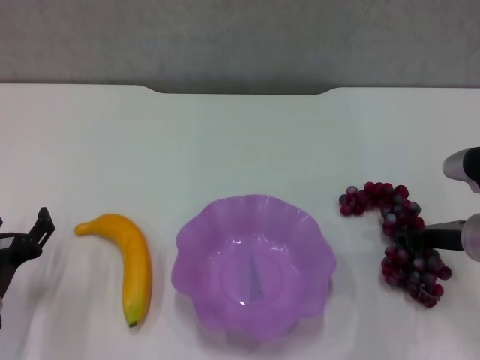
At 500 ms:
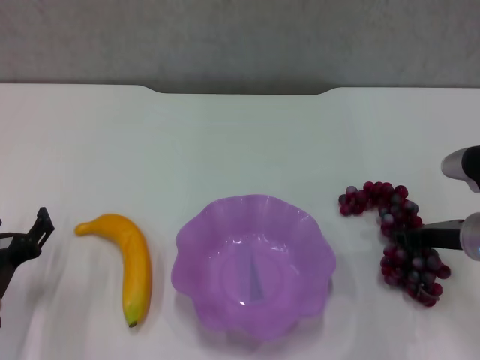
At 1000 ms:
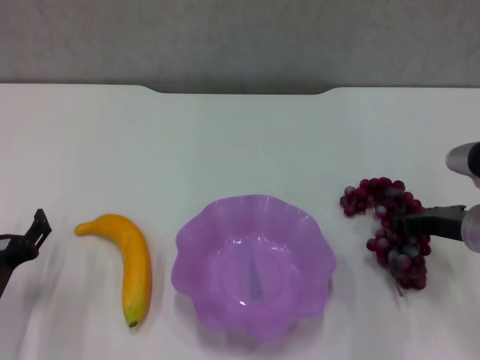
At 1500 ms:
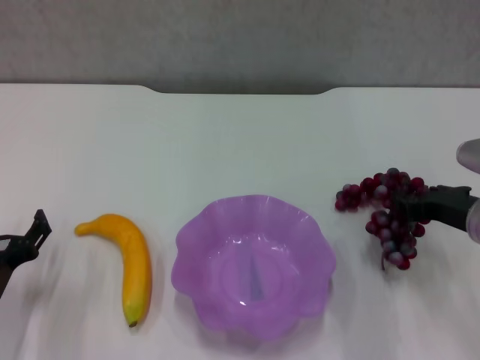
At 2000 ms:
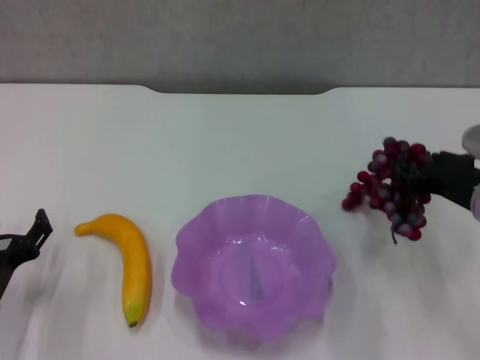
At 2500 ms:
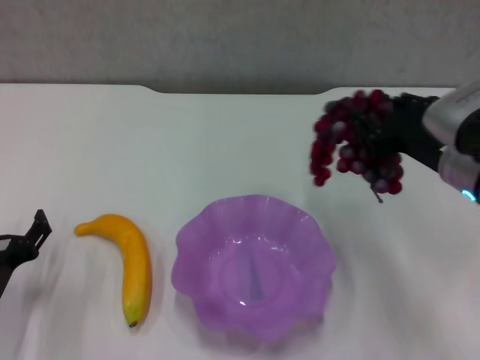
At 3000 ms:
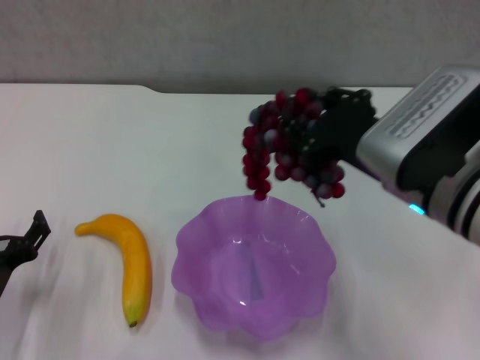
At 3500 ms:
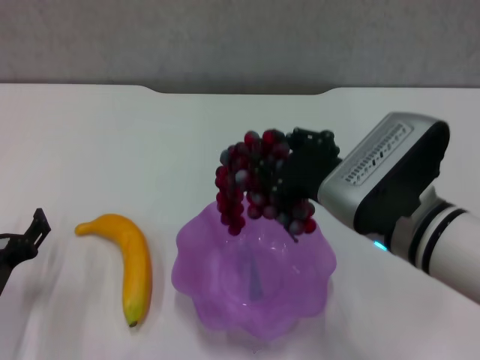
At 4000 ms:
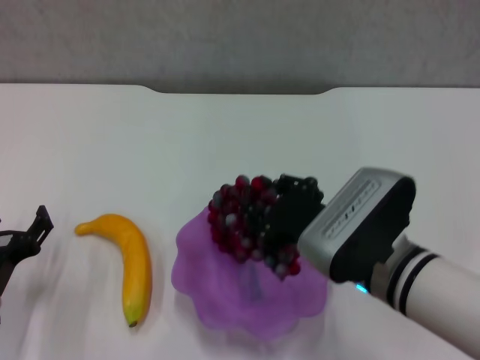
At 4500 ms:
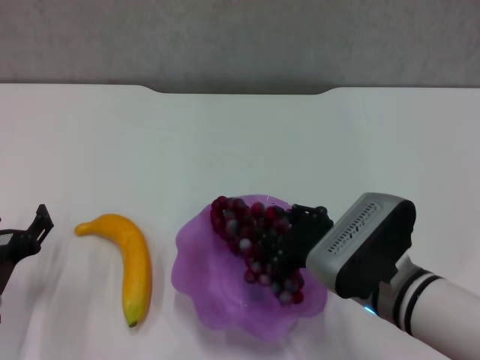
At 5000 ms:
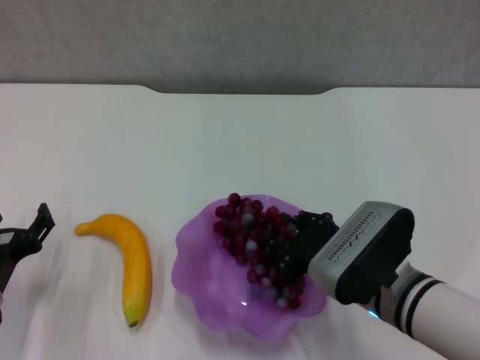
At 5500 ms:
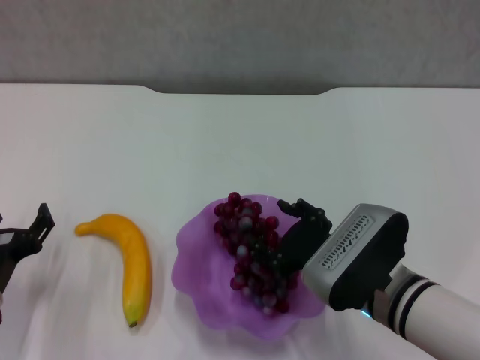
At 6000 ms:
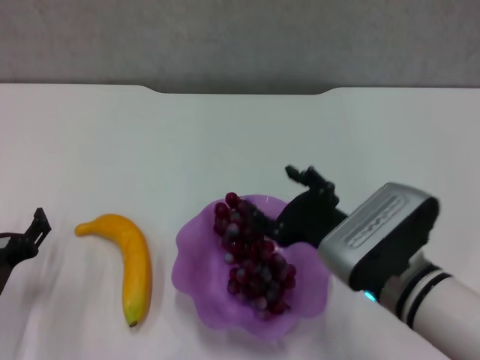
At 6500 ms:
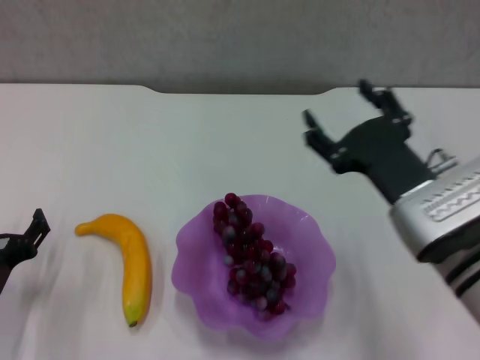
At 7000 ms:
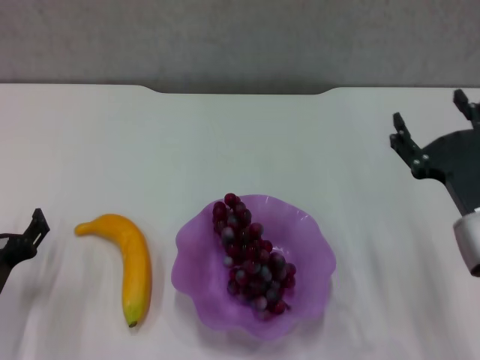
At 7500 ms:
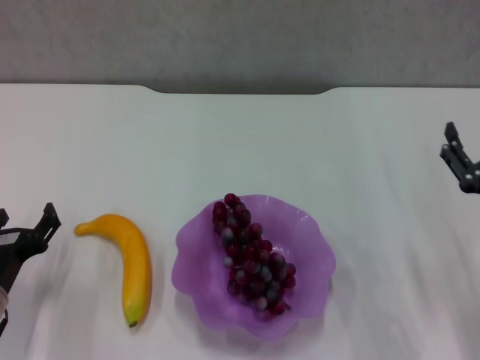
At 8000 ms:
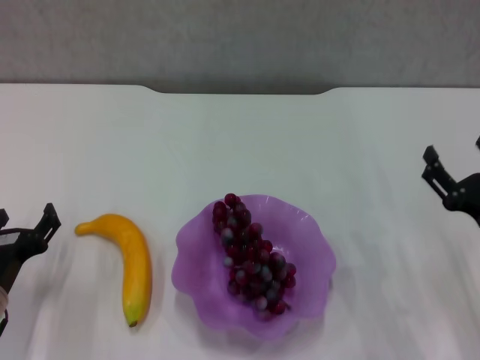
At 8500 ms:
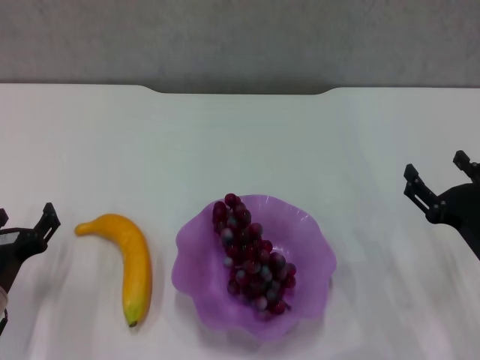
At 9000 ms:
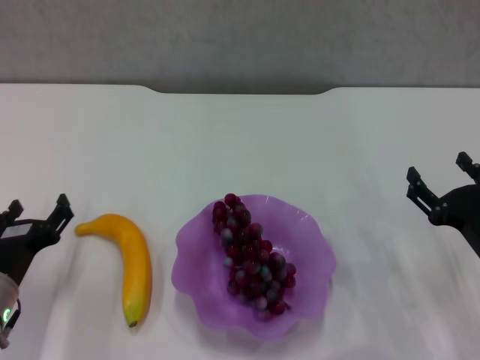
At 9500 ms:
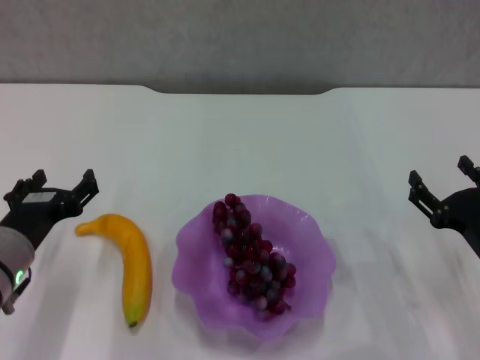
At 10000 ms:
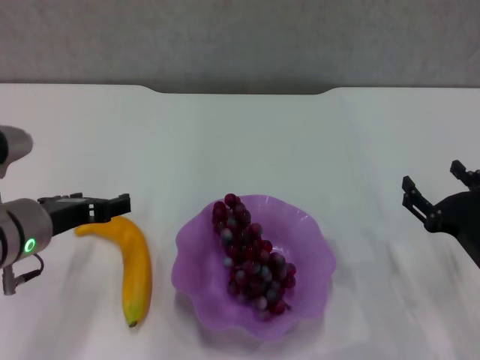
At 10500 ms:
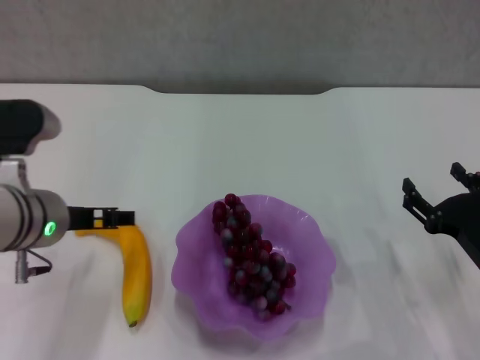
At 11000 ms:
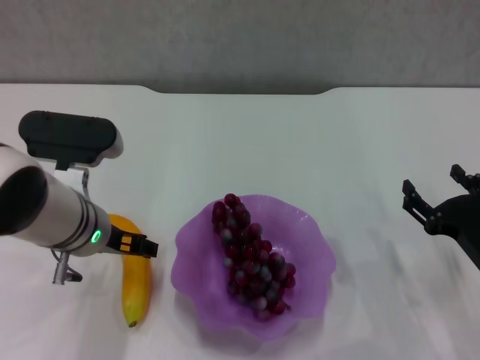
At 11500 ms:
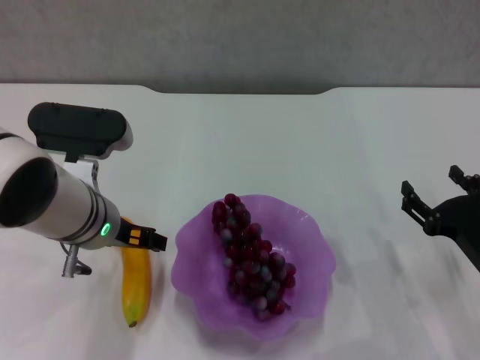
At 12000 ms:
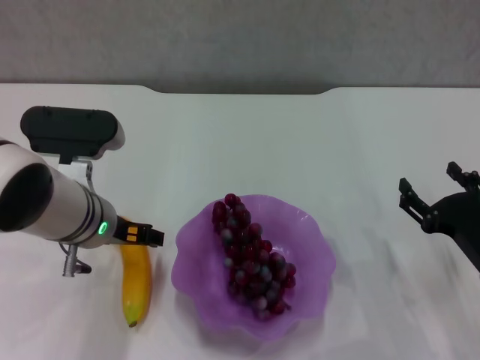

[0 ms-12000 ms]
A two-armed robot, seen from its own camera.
Step, 0 ms to 6000 ms: Place the grape in the purple plate with right gripper.
0 ms to 2000 ms: The right gripper moves upward, approximately 5 cm.
2000 ms to 4000 ms: The right gripper travels to the left by roughly 15 cm.
4000 ms to 6000 ms: The right gripper opens up.
6000 ms to 8000 ms: The right gripper heads to the right, covering about 15 cm.
8000 ms to 10000 ms: The left gripper is displaced upward and to the right by about 10 cm.
10000 ms to 12000 ms: The left gripper shifts approximately 5 cm to the right.

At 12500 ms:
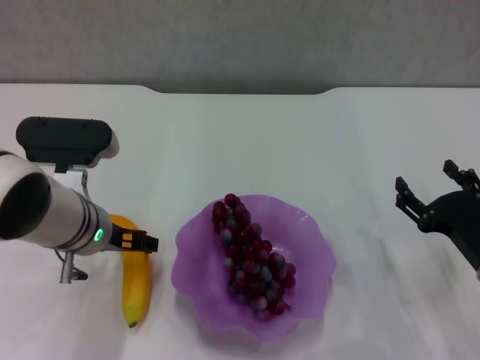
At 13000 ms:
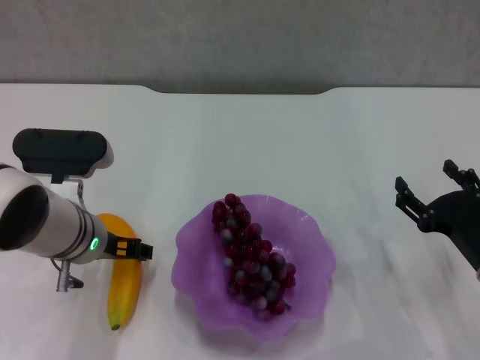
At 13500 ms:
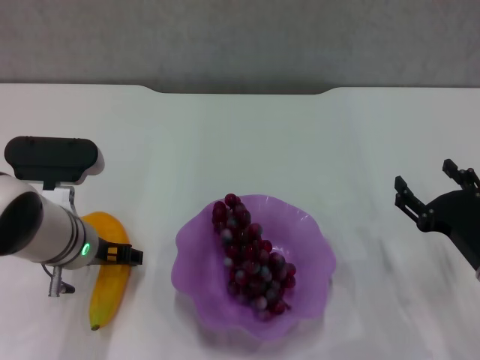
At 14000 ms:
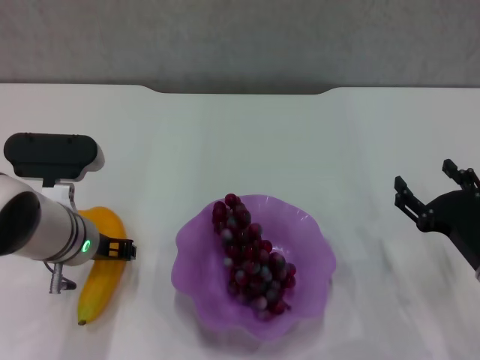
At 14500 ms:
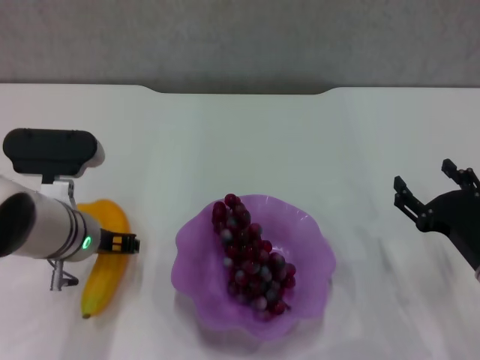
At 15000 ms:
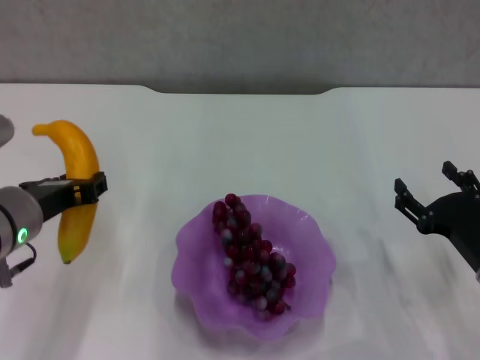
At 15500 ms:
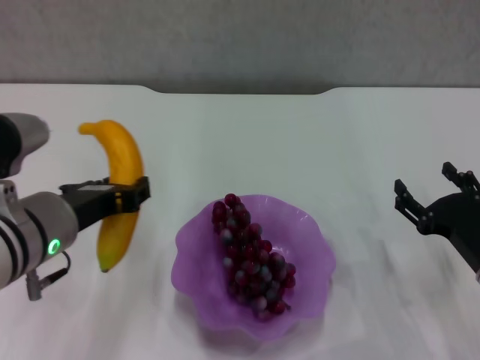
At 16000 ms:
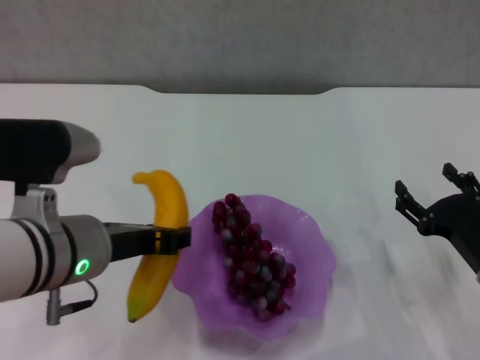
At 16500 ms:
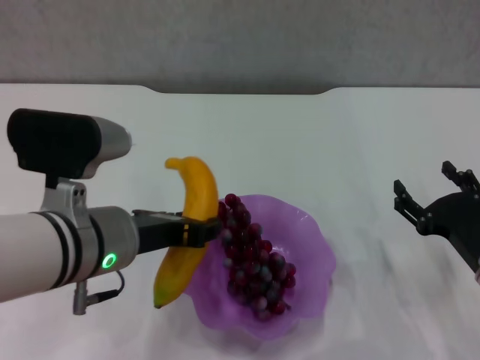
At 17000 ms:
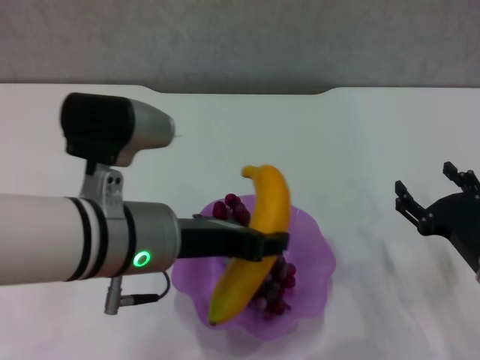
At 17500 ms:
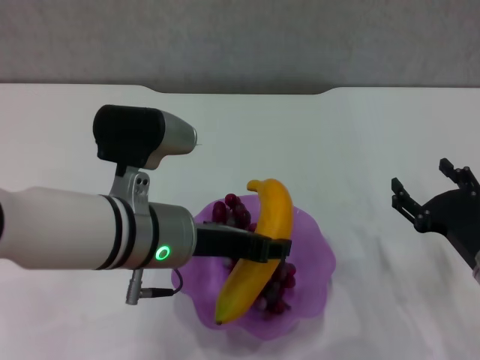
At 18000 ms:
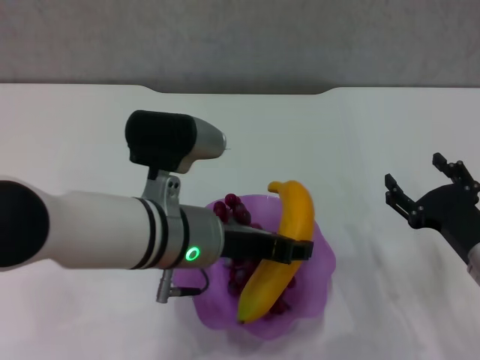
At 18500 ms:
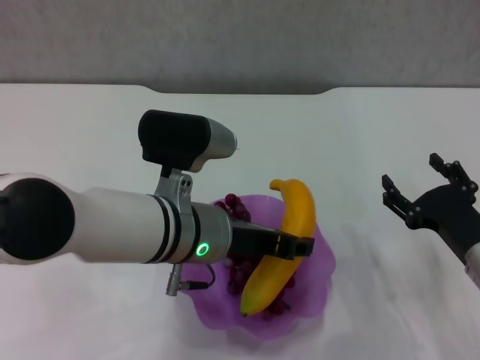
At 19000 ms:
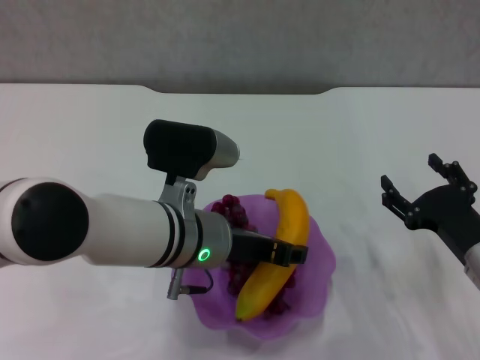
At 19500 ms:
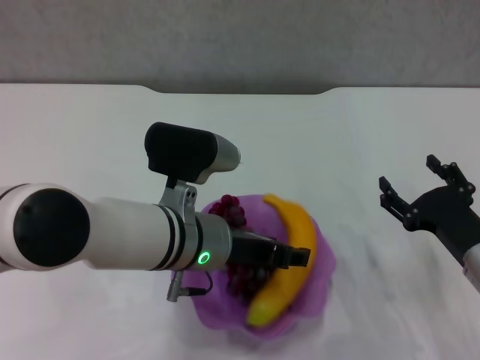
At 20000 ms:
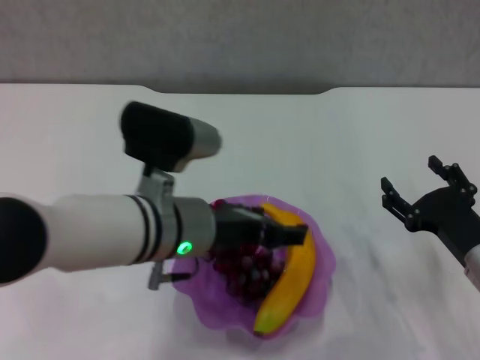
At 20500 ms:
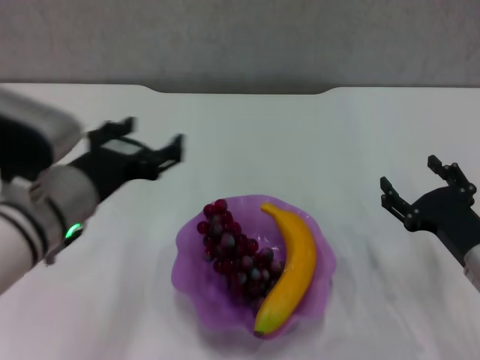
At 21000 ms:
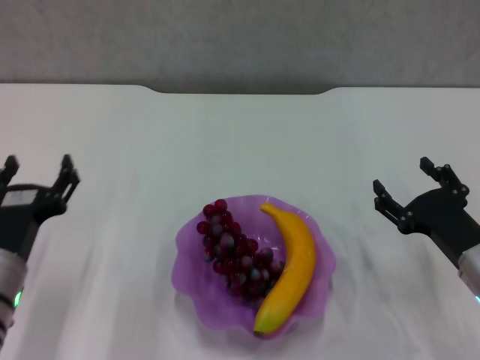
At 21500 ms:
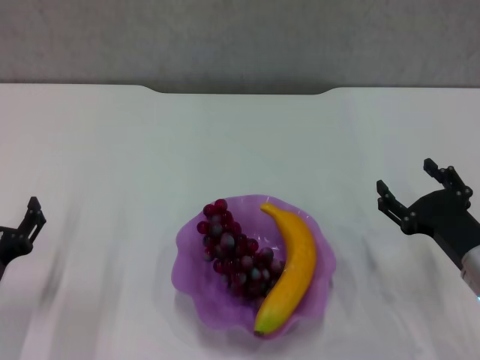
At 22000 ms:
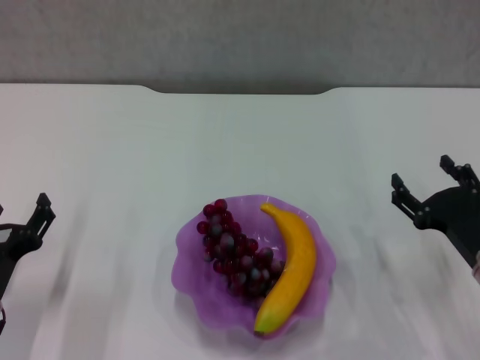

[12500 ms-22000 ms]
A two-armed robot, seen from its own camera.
Step, 14500 ms to 20000 ms: Place the banana in the purple plate with left gripper.
12500 ms to 14500 ms: The left gripper closes its fingers.
14500 ms to 16500 ms: The left gripper shifts some 10 cm backward and upward.
16500 ms to 18000 ms: The left gripper moves to the right, roughly 5 cm.
18000 ms to 20000 ms: The left gripper opens its fingers.
20000 ms to 22000 ms: The left gripper goes roughly 20 cm to the left and downward.
